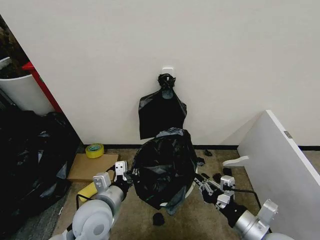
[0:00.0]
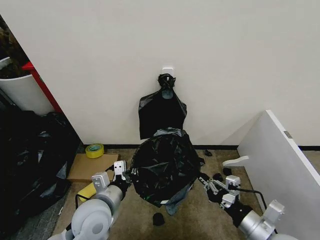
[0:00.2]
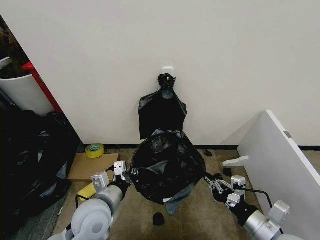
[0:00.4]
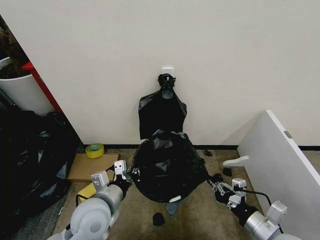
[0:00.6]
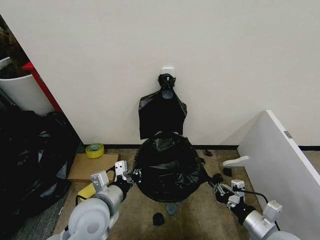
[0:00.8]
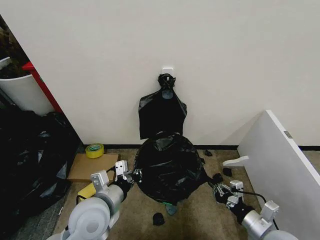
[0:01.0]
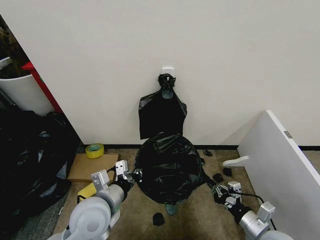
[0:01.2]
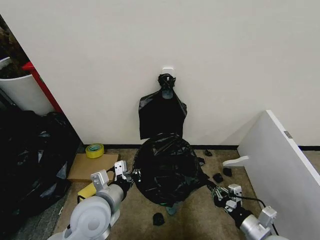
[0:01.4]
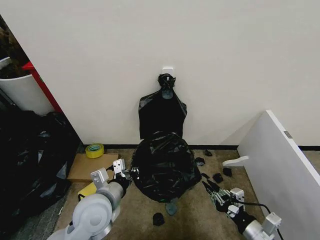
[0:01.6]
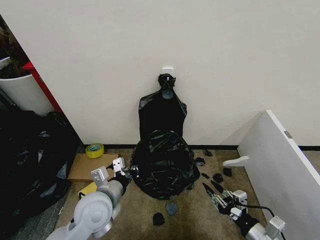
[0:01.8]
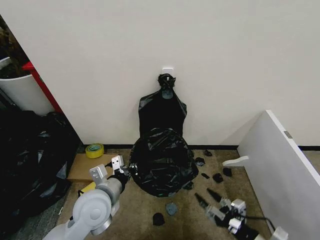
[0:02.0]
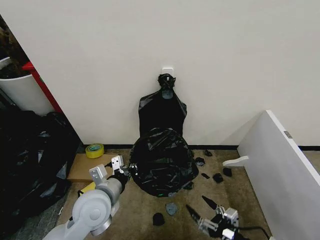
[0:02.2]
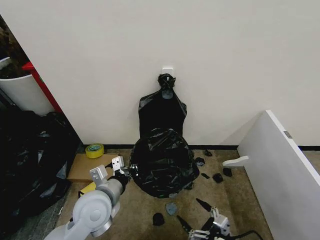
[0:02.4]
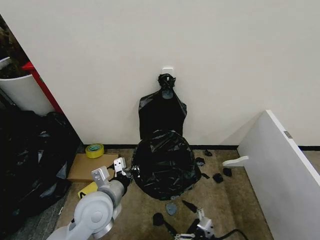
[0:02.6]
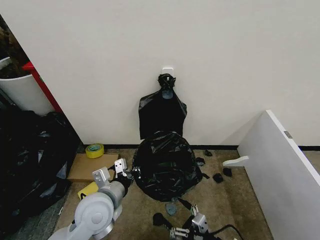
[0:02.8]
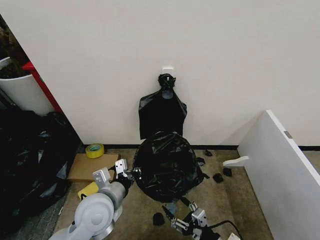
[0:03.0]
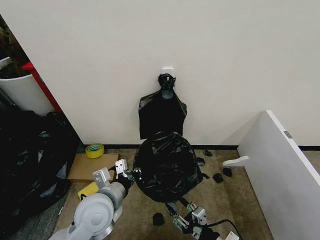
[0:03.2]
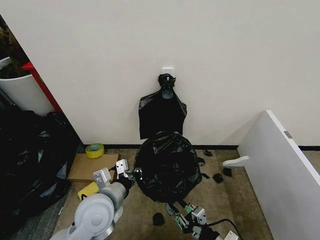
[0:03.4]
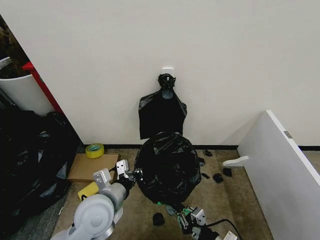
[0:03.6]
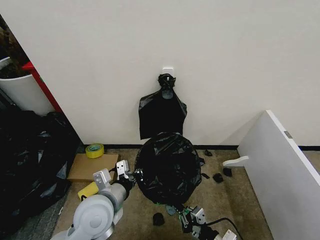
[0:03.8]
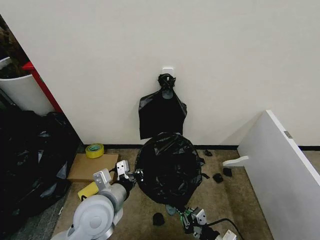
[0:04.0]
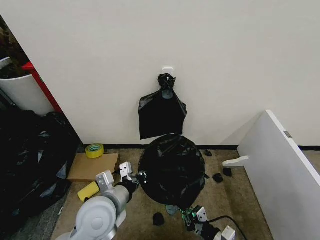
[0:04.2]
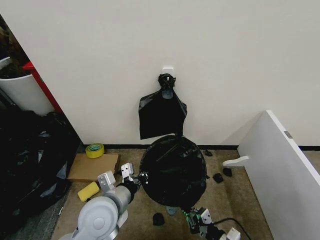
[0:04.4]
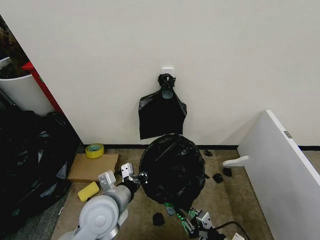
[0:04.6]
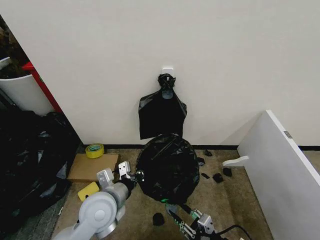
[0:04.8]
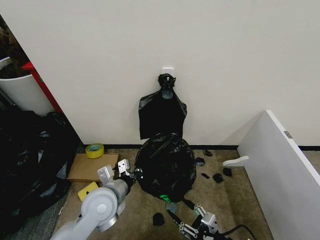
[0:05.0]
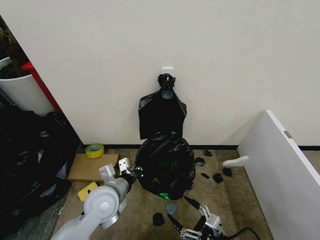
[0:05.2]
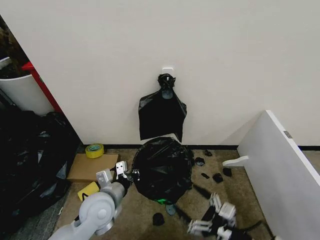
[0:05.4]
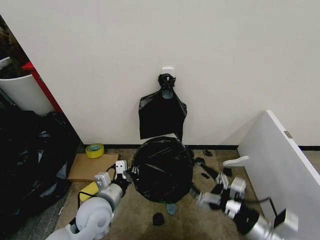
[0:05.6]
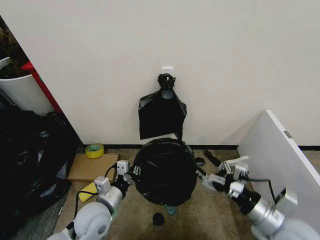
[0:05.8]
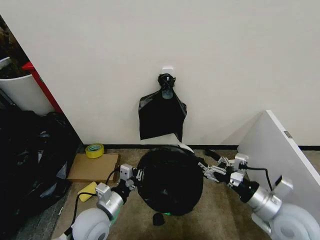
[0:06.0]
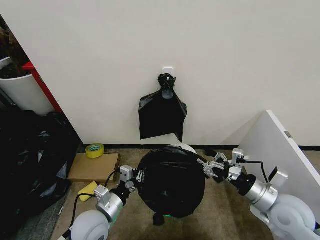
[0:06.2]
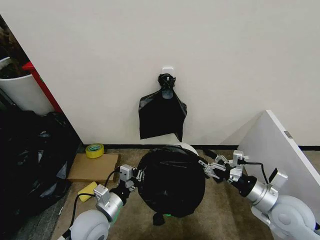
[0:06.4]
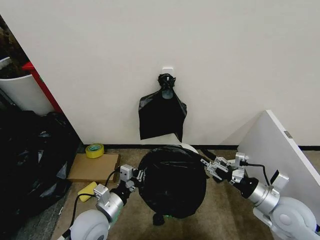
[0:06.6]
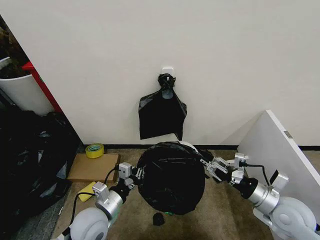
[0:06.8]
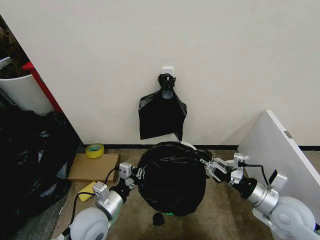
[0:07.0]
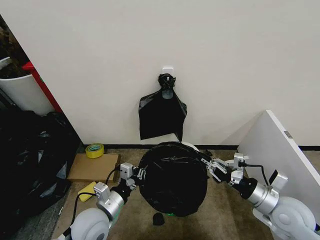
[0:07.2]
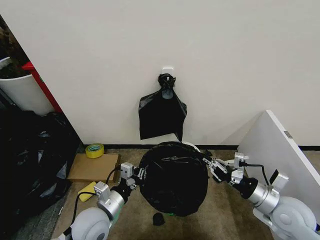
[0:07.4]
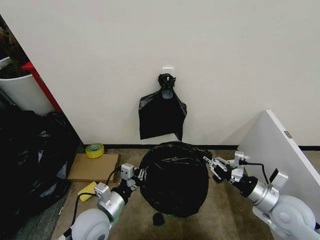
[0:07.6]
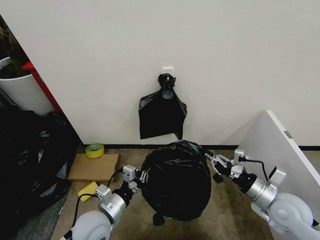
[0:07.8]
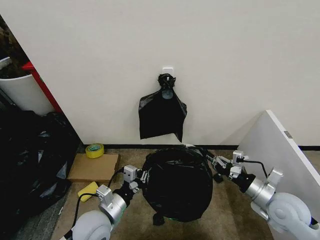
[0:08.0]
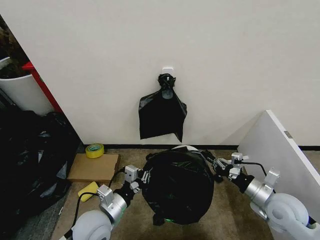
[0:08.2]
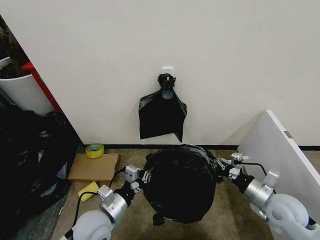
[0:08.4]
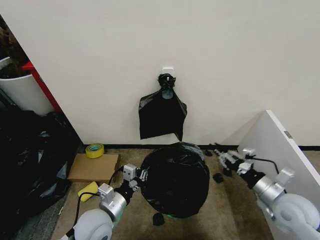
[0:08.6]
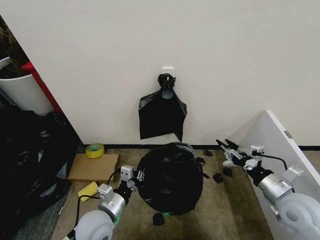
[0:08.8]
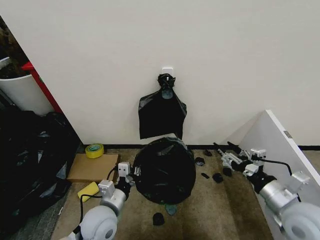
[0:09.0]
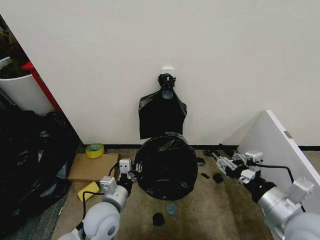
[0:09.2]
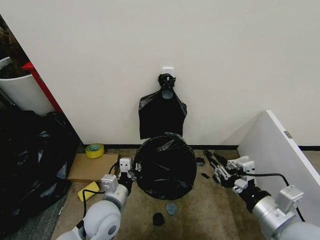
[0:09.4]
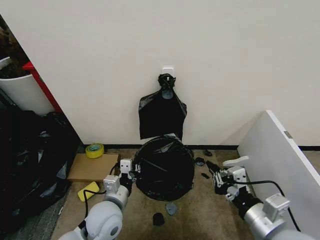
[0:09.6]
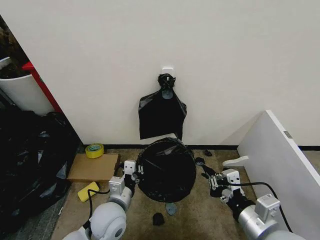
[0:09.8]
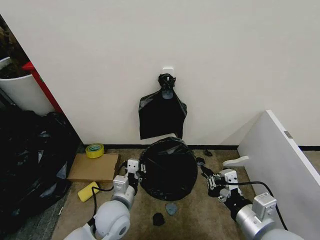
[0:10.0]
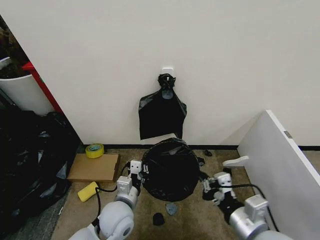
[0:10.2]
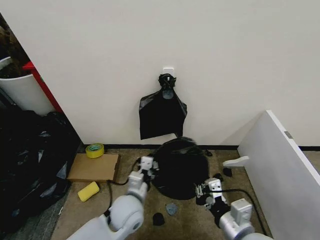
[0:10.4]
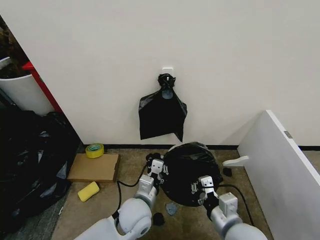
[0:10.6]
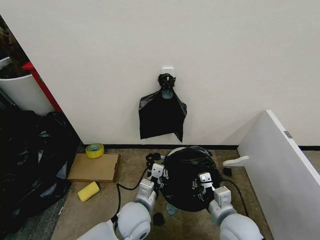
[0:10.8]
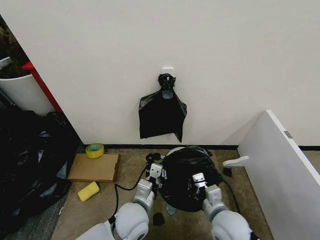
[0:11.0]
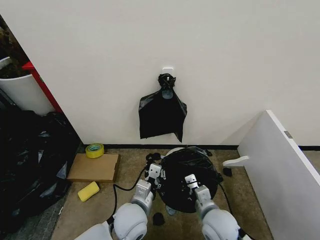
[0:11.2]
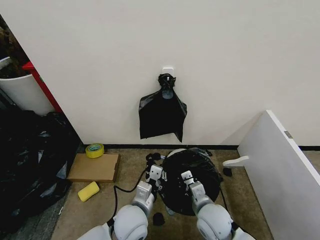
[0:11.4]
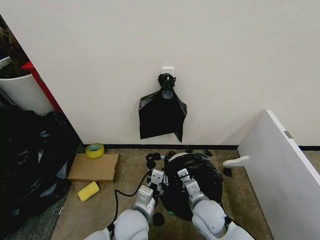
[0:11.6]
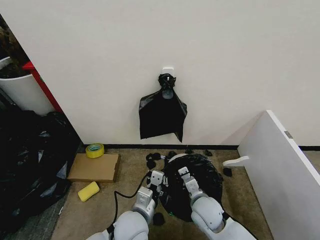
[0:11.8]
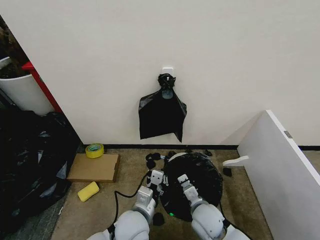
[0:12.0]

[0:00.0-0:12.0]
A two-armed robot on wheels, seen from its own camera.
Task of the whole recording: Place the garbage bag over the trash bin.
0:00.0 to 0:01.6: The right gripper travels downward by some 10 cm.
0:01.6 to 0:03.0: The right gripper heads to the left, covering about 10 cm, and opens.
0:03.0 to 0:04.4: The right gripper shifts by about 5 cm, and closes its fingers.
0:04.4 to 0:06.0: The left gripper shifts approximately 10 cm downward. The right gripper travels upward and forward by approximately 20 cm, and opens its fingers.
0:06.0 to 0:07.6: The right gripper closes.
0:07.6 to 0:09.0: The right gripper opens up.
0:09.0 to 0:10.4: The left gripper is displaced to the right by some 5 cm, while the right gripper shifts some 15 cm to the left and backward, and closes.
0:10.4 to 0:12.0: The right gripper is displaced downward, forward and to the left by about 20 cm.

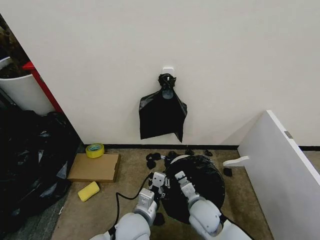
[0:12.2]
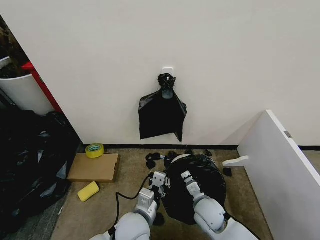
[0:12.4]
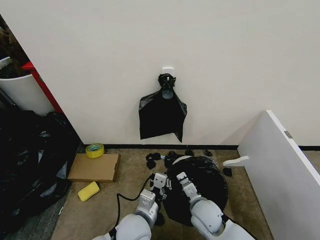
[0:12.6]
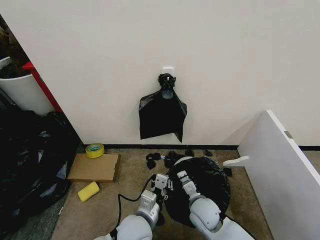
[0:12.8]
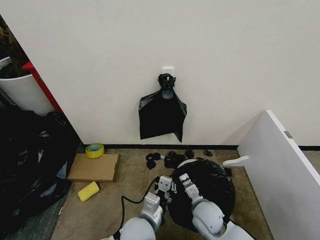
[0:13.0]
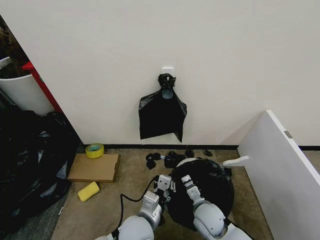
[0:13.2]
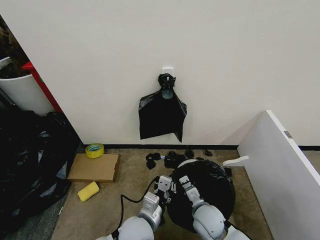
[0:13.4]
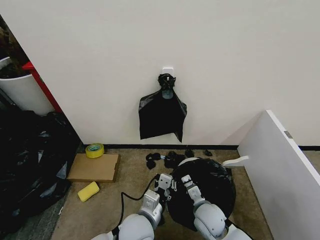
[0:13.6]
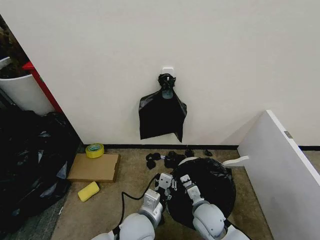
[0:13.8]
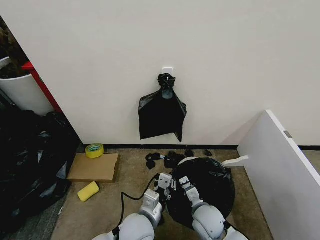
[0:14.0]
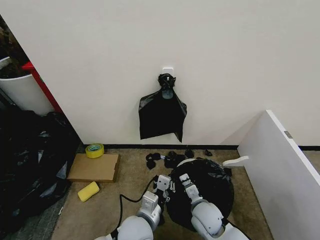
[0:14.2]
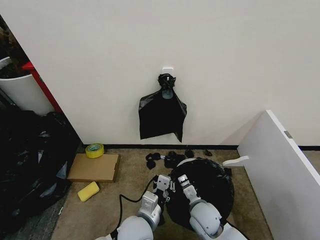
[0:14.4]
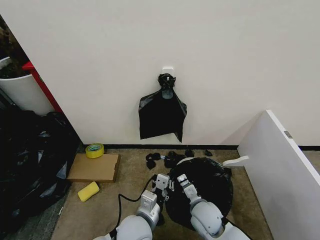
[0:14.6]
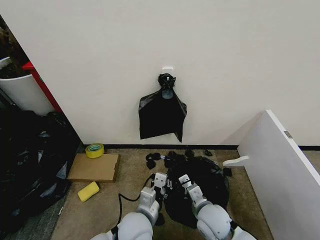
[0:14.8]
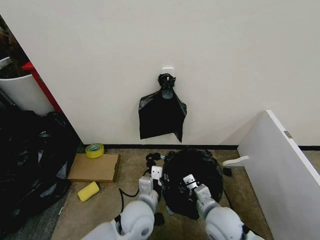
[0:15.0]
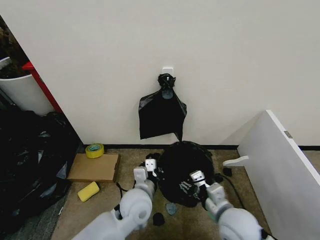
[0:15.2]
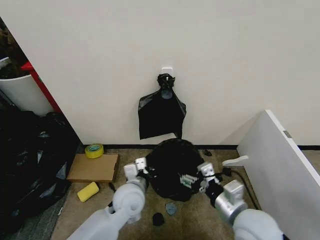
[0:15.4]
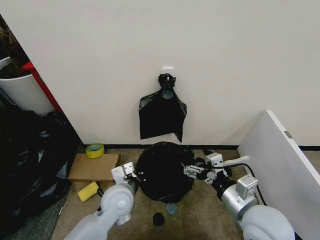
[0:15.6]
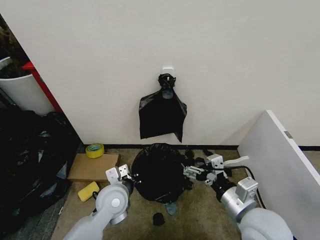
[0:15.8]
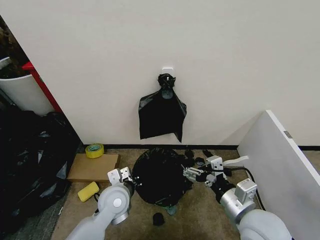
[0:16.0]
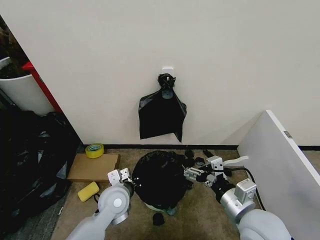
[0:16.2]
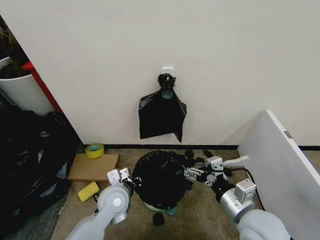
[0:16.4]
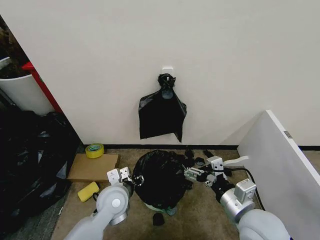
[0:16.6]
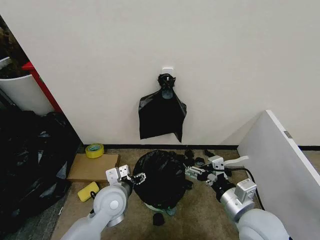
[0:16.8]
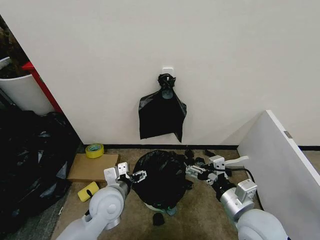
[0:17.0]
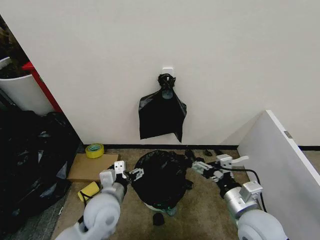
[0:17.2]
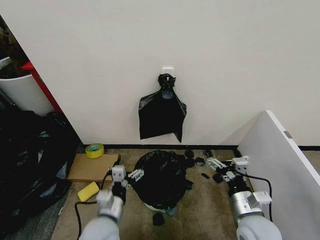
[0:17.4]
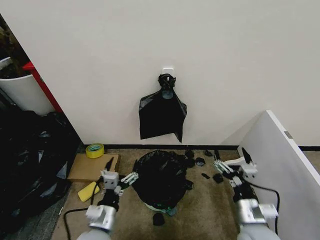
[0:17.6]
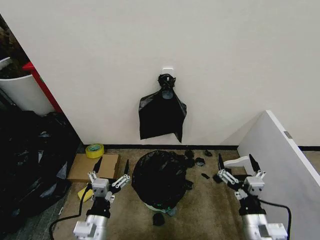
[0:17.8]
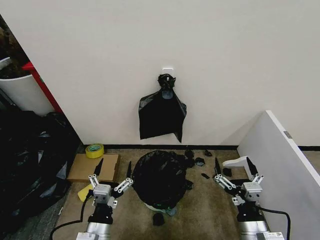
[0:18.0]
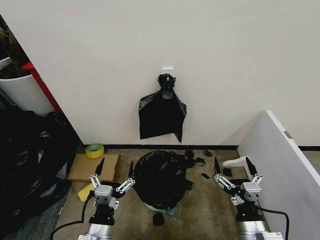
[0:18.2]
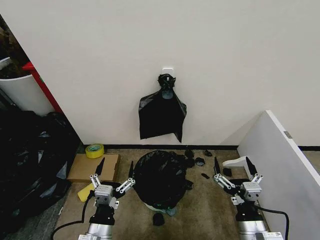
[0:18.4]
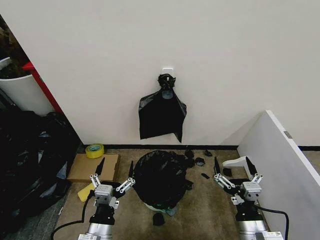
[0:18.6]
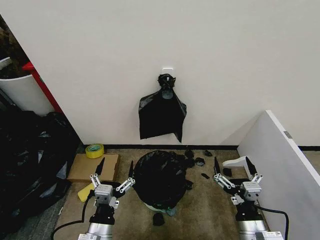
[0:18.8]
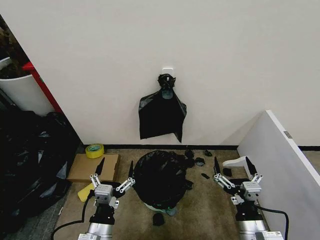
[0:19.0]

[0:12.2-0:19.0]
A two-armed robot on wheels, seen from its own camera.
Task of the whole recording: Place the garbage bag over the trash bin.
0:12.2 to 0:13.6: The grippers stay close to where they were, moving slightly.
0:13.6 to 0:15.0: The right gripper is displaced upward by approximately 5 cm, and opens up.
0:15.0 to 0:16.2: The left gripper travels to the left by roughly 10 cm. Meanwhile the right gripper travels upward by some 10 cm, and opens.
0:16.2 to 0:17.6: The right gripper goes about 10 cm downward; the left gripper is displaced backward by some 10 cm, and opens.
0:17.6 to 0:19.0: The right gripper moves about 5 cm.

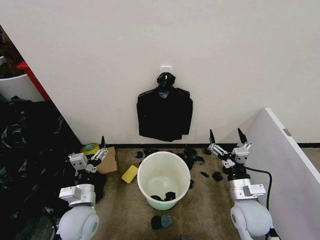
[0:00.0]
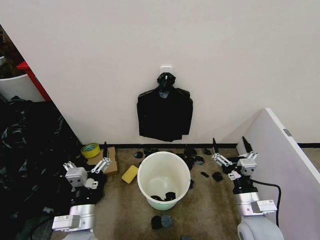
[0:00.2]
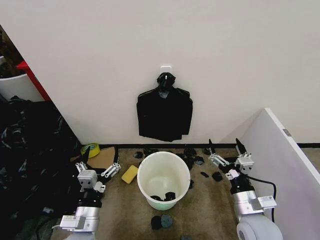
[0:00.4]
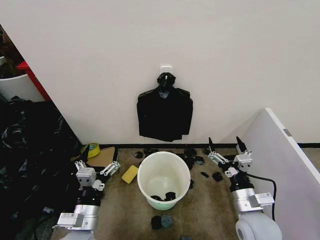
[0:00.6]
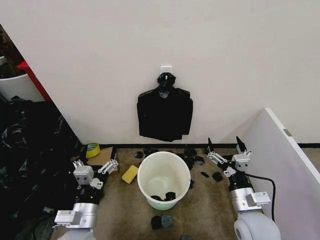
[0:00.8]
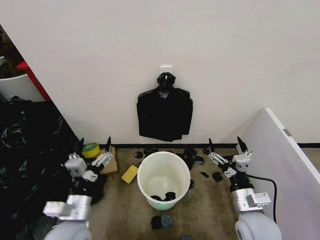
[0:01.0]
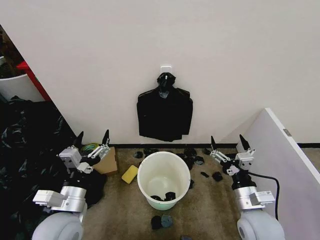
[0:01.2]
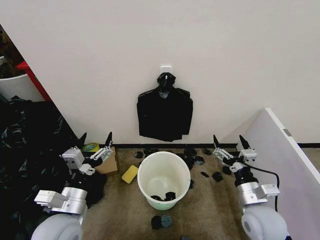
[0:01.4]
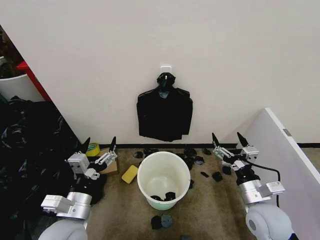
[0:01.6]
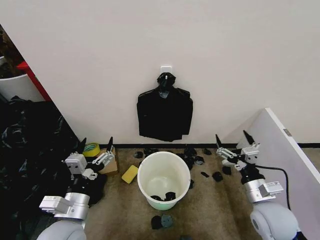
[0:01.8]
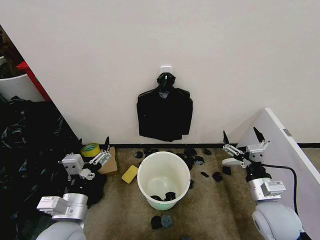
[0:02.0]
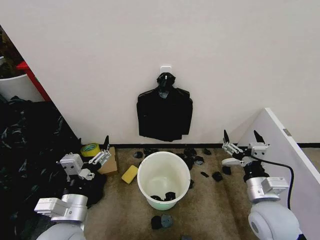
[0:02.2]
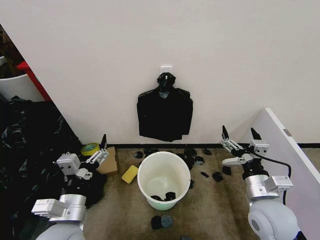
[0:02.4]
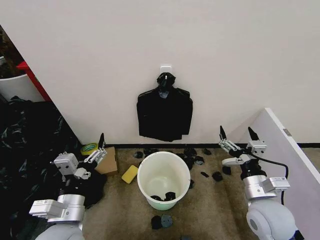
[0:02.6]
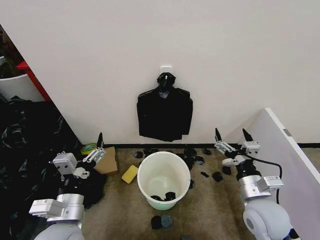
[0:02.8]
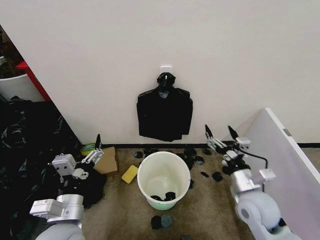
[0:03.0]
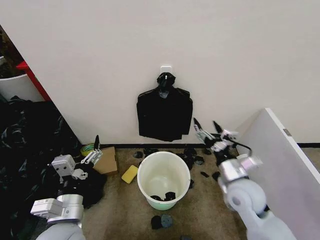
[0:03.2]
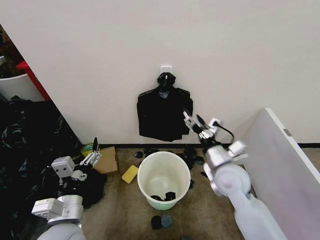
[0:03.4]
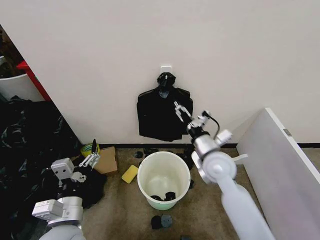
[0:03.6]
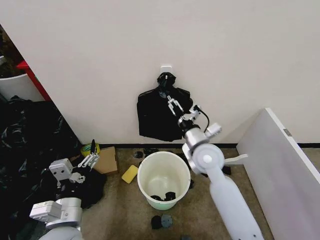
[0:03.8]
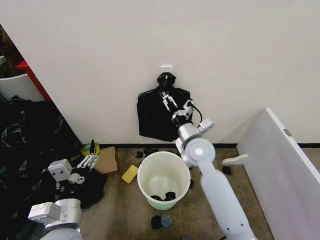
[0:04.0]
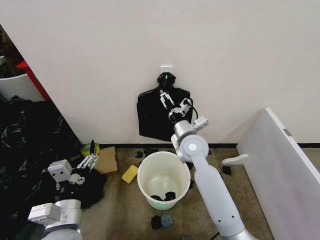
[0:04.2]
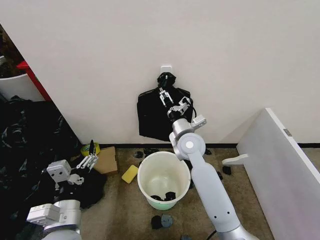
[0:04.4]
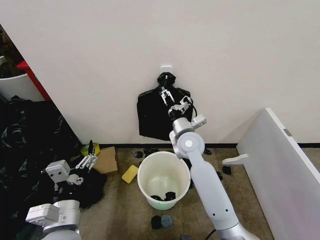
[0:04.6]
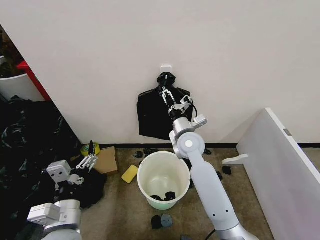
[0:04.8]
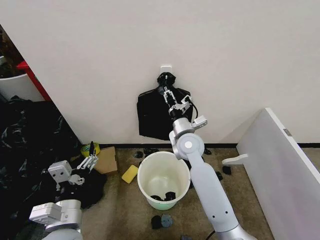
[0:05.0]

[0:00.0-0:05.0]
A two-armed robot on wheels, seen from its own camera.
Task of the whole recording: Place the garbage bag over the trash bin.
0:01.6 to 0:03.4: The right gripper is displaced forward, to the left and upward by roughly 15 cm.
0:03.4 to 0:05.0: The right gripper travels forward and to the left by roughly 15 cm, and closes its fingers.
